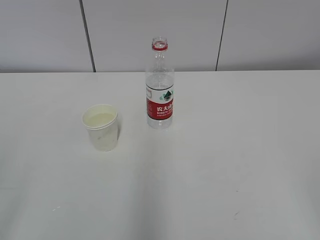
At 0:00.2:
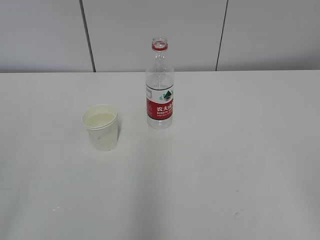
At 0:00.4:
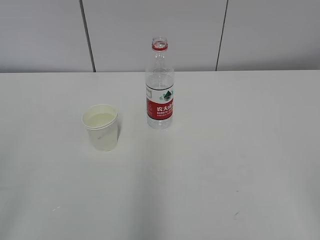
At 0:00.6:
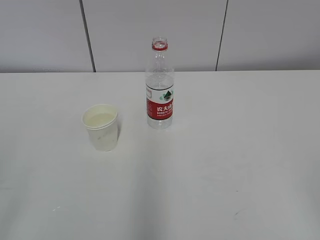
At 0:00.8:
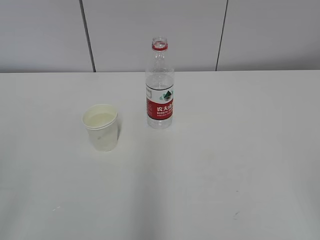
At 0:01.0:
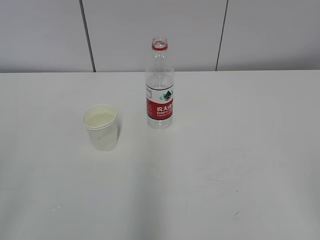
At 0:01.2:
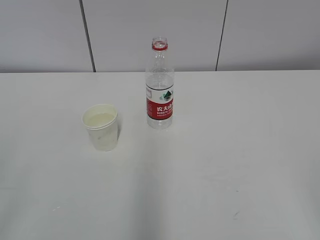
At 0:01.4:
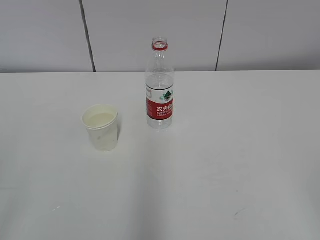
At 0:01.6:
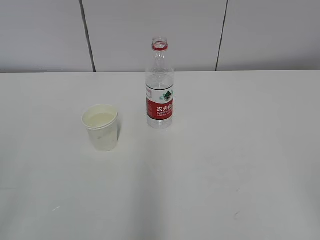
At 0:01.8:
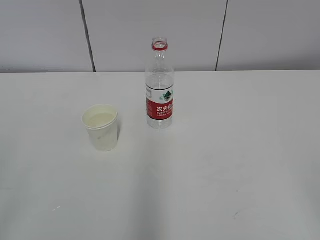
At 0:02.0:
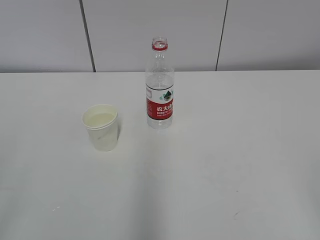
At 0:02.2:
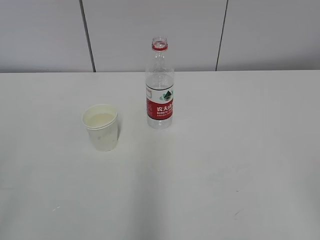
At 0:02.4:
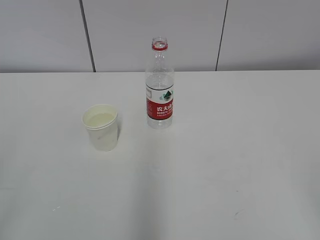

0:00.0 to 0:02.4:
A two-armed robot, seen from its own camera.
0:00.0 to 0:02.4: Neither gripper changes place.
